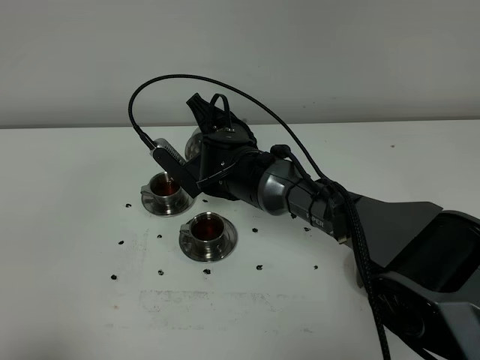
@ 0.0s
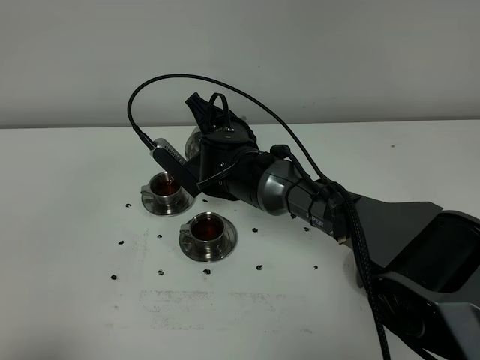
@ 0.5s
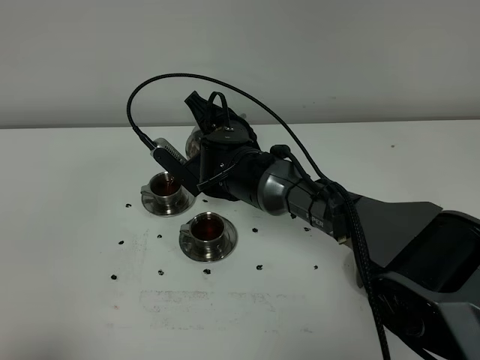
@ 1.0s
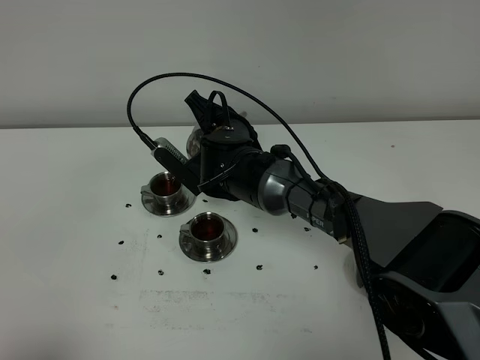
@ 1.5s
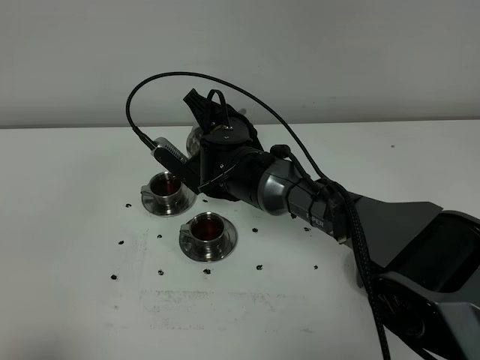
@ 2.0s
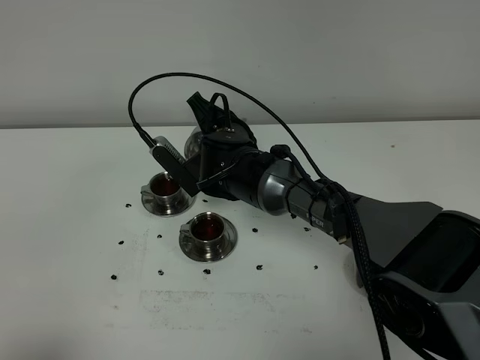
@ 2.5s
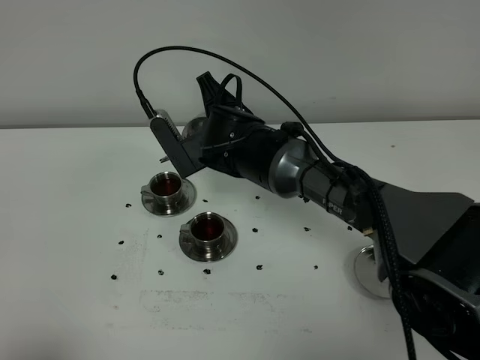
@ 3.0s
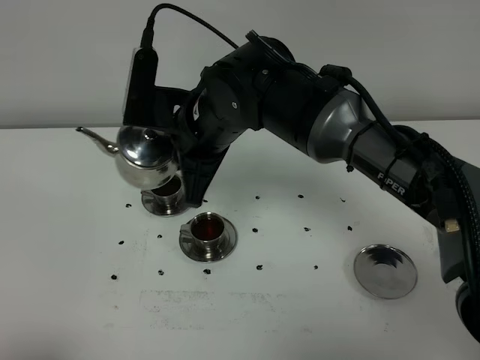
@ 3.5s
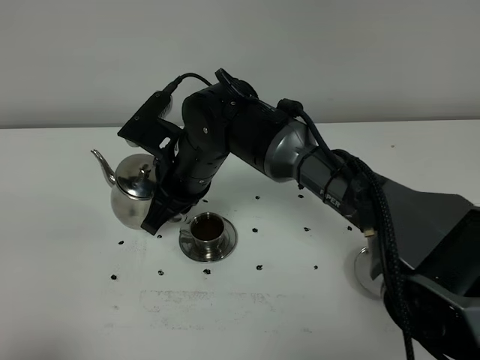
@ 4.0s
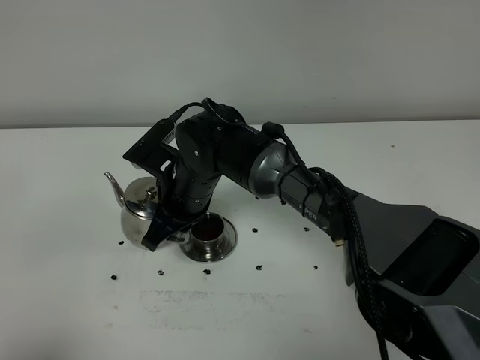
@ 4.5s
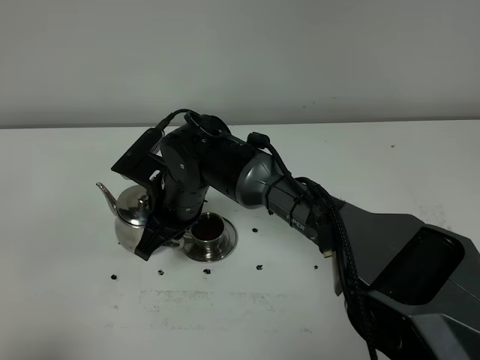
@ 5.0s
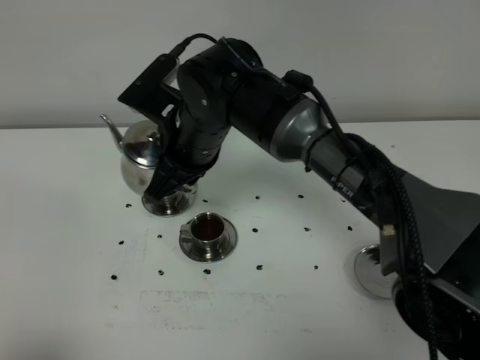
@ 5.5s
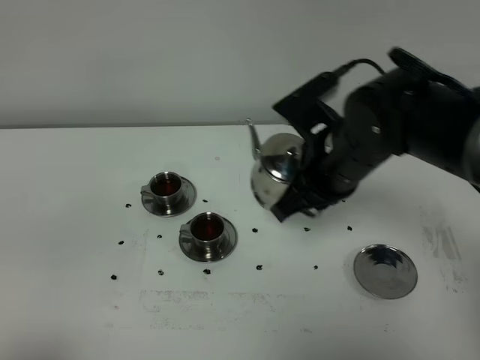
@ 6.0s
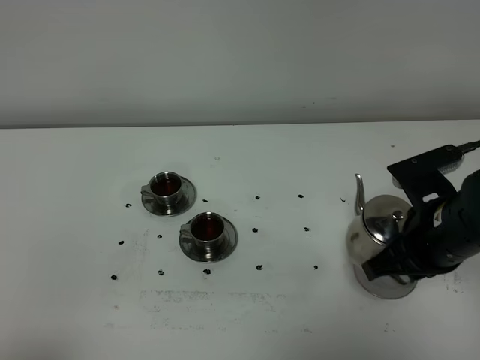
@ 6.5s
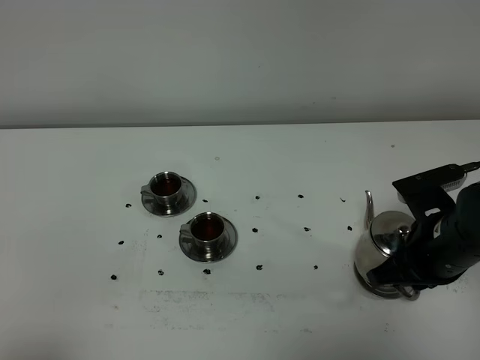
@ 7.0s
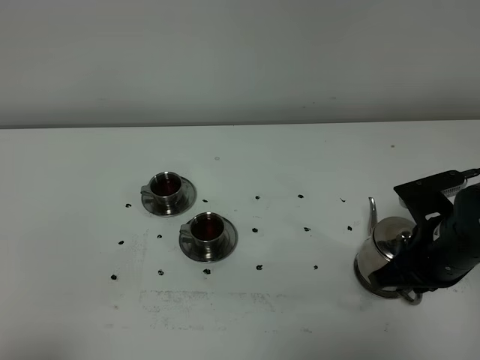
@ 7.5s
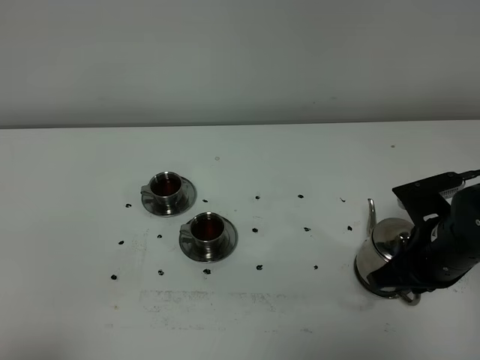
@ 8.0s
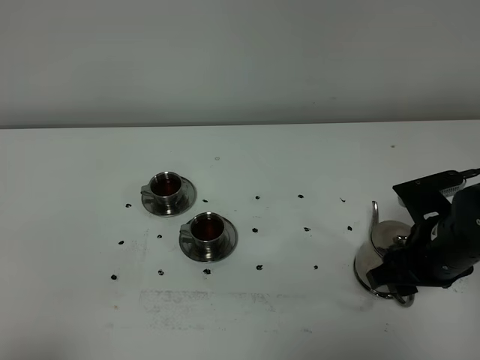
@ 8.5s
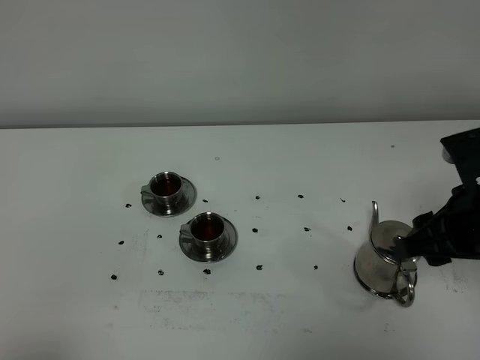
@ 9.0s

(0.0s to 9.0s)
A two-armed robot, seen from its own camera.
Task of the whole recording: grasp the stainless steel teapot and pour the tea into the two stainless steel teacups one by one, put the stainless steel teapot back in its original place.
Step, 0.0s - 3.0s: Pour tea into the teacup with the right gripper.
0.0s - 2.0s: The grippers make only small movements.
2.0s - 4.5s: The right gripper moves backward, roughly 5 cm, and moves approximately 10 cm upward and comes back.
4.5s - 7.0s: The right gripper moves to the right, approximately 30 cm.
7.0s - 9.0s: The right gripper shifts about 10 cm upward, and opens up.

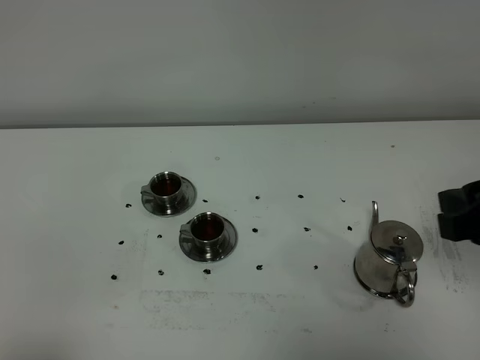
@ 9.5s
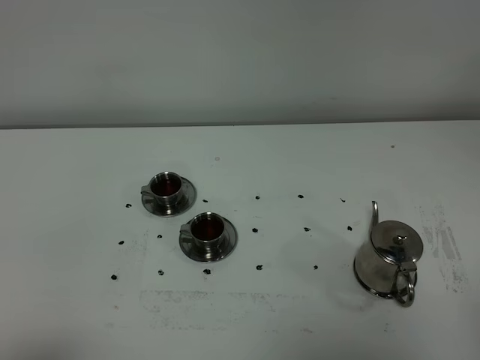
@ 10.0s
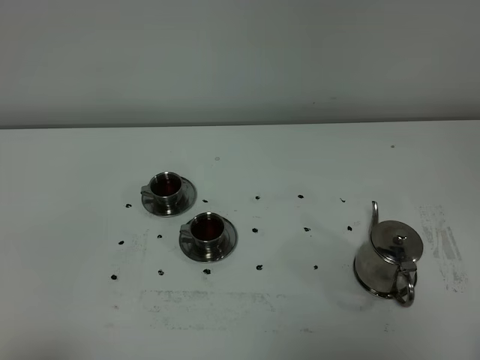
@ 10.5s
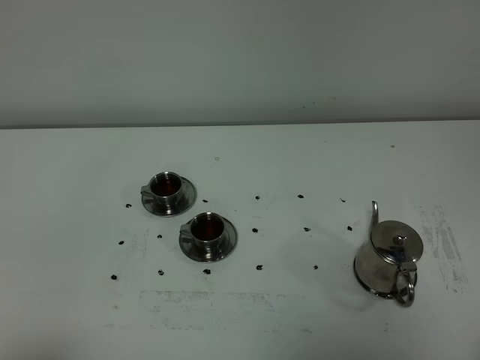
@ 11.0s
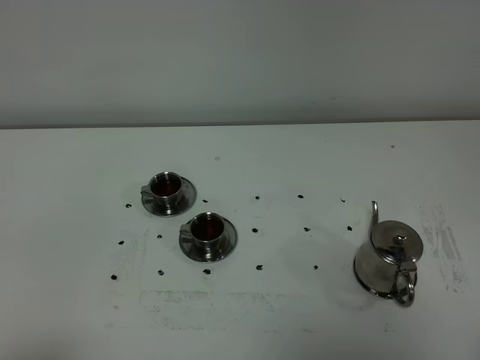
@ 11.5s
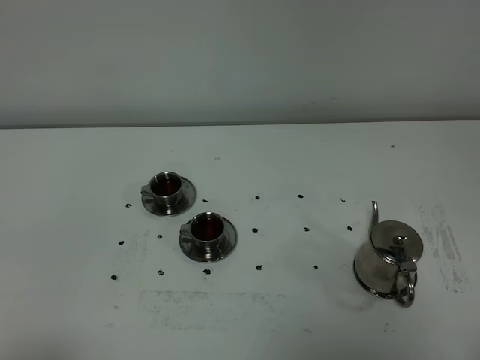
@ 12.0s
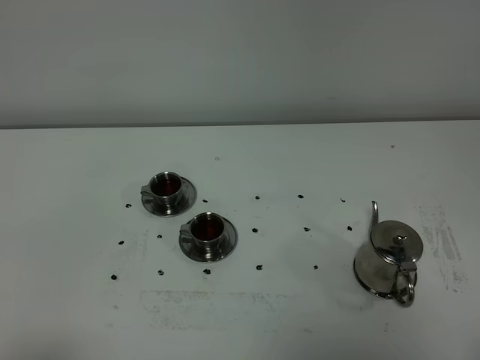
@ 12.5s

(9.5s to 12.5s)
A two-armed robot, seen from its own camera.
Task of the whole recording: grasp the stainless steel teapot and pour the tea into the two stainless steel teacups one by one, put the stainless steel teapot back in its original place.
9.5s - 11.0s: The right gripper is displaced backward by about 15 cm.
